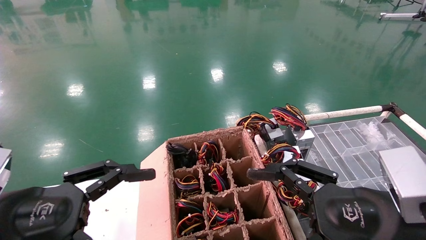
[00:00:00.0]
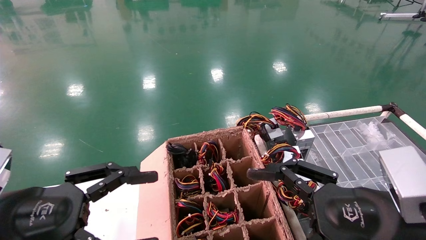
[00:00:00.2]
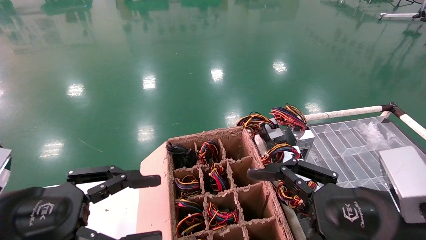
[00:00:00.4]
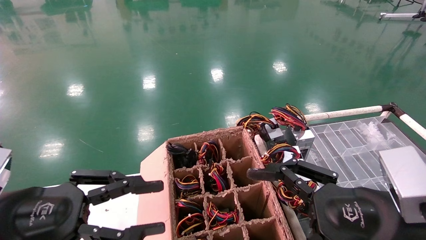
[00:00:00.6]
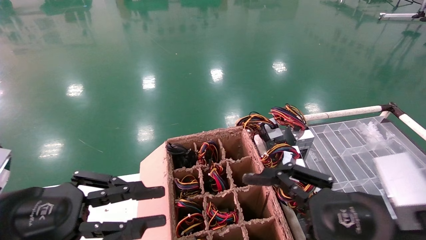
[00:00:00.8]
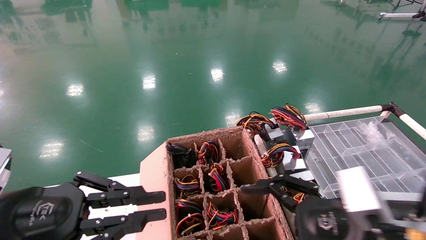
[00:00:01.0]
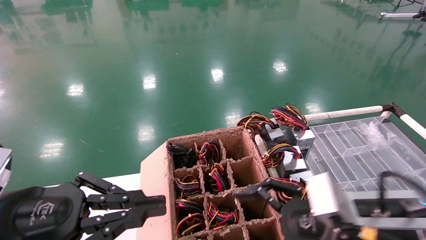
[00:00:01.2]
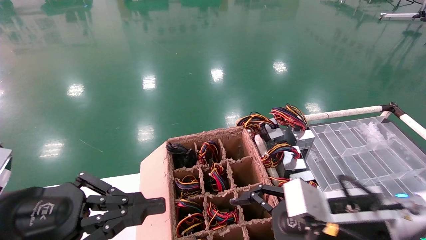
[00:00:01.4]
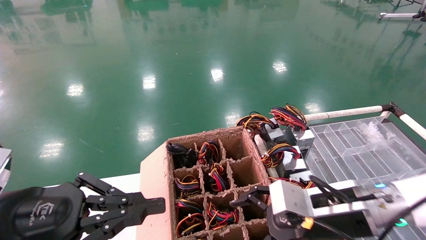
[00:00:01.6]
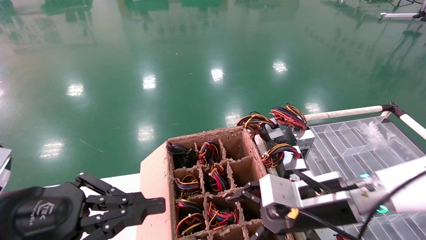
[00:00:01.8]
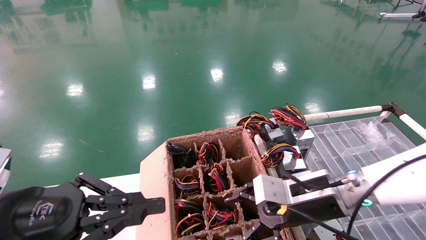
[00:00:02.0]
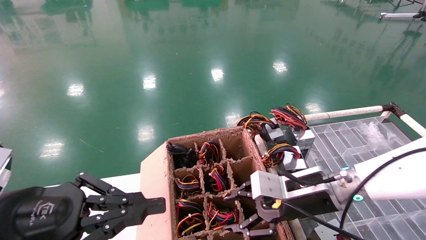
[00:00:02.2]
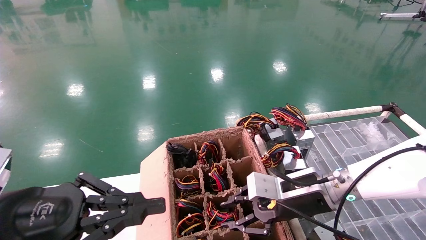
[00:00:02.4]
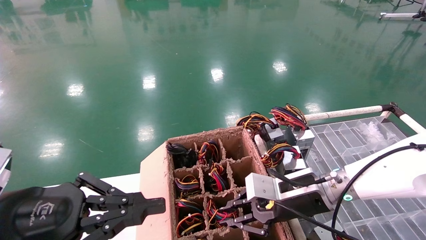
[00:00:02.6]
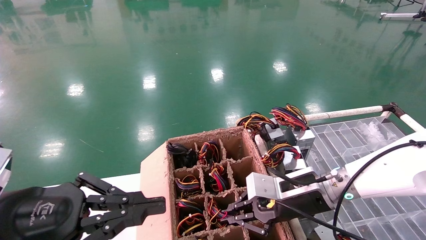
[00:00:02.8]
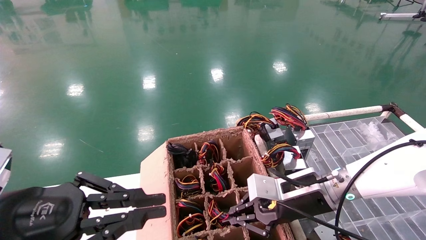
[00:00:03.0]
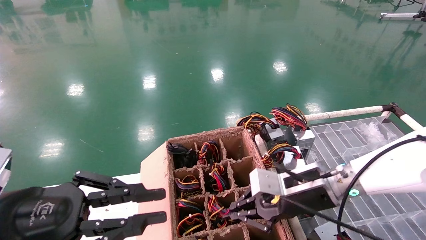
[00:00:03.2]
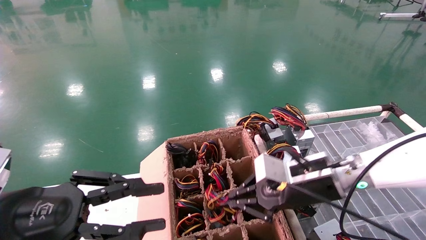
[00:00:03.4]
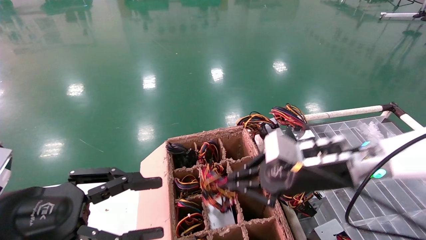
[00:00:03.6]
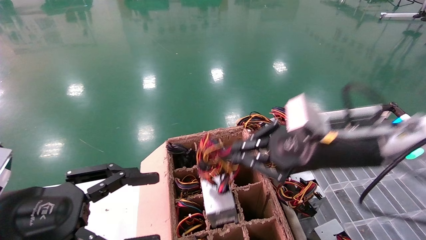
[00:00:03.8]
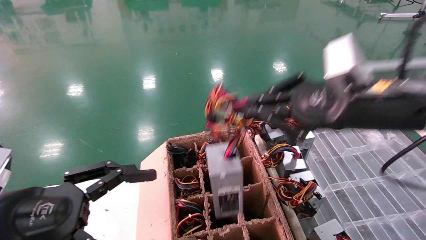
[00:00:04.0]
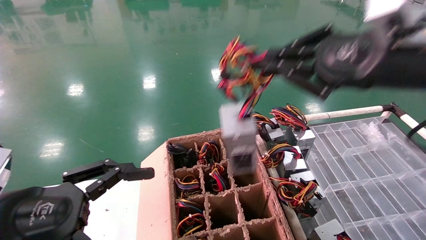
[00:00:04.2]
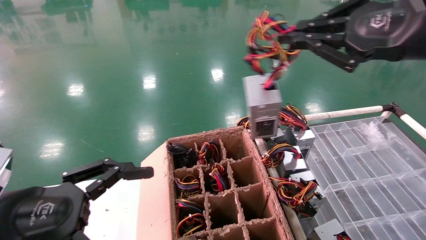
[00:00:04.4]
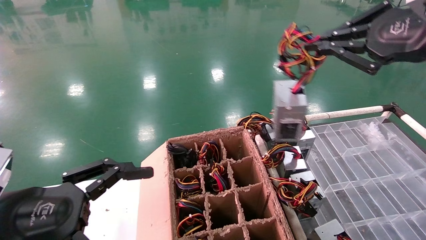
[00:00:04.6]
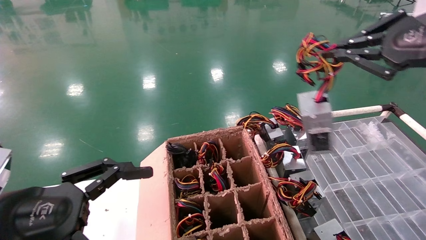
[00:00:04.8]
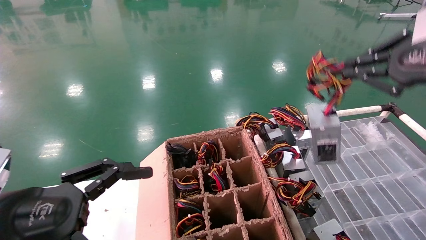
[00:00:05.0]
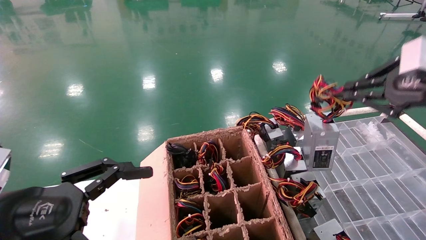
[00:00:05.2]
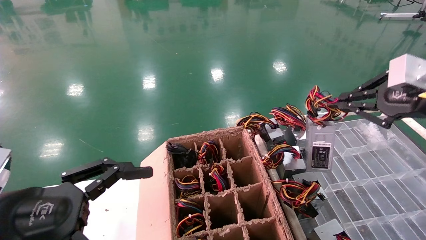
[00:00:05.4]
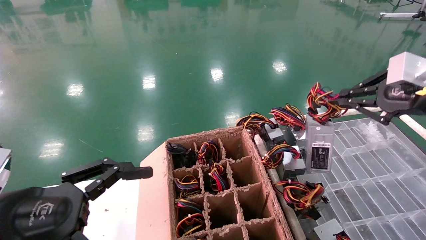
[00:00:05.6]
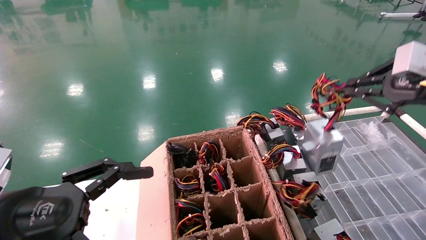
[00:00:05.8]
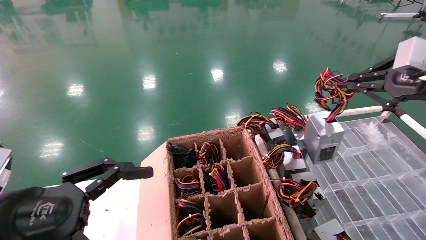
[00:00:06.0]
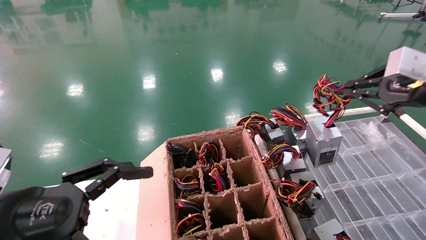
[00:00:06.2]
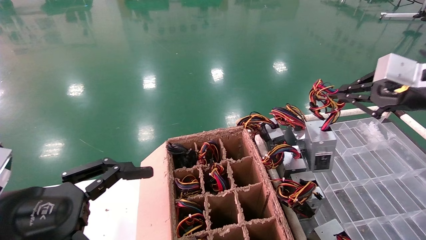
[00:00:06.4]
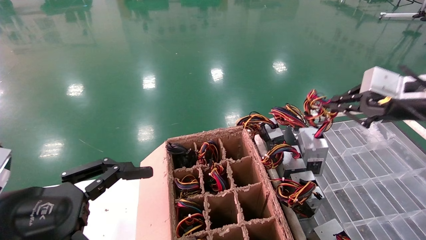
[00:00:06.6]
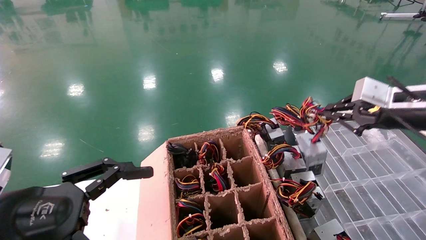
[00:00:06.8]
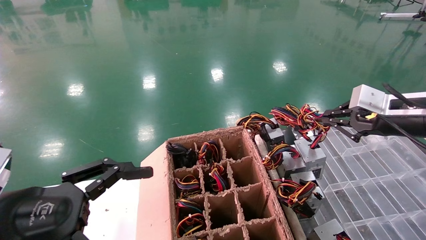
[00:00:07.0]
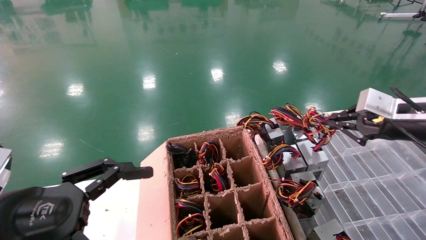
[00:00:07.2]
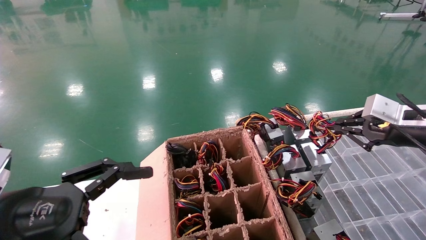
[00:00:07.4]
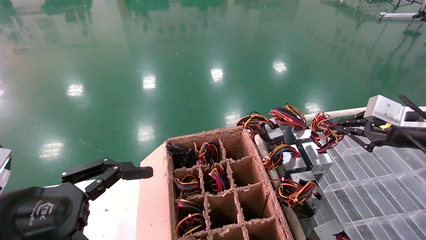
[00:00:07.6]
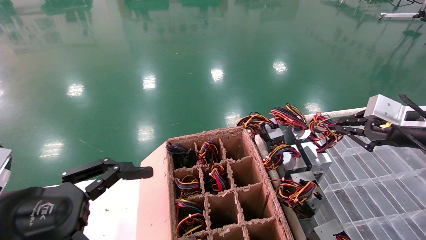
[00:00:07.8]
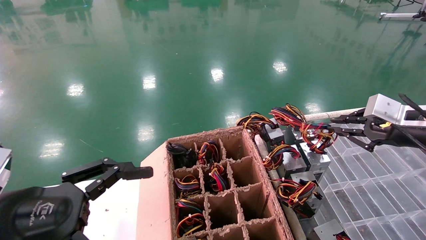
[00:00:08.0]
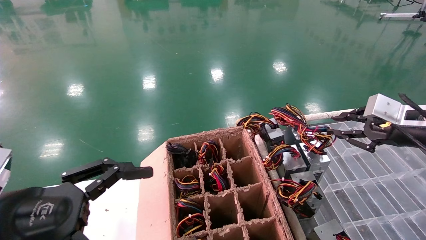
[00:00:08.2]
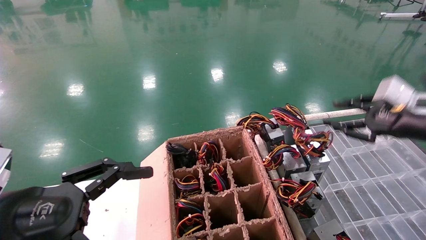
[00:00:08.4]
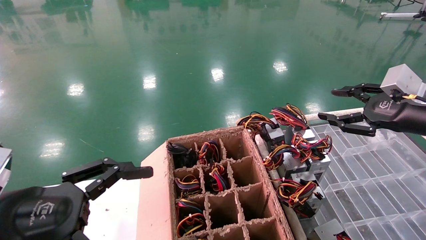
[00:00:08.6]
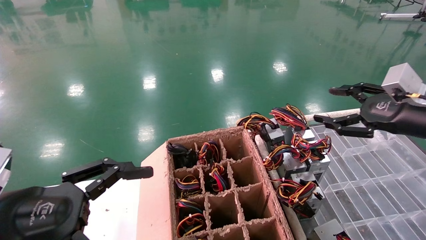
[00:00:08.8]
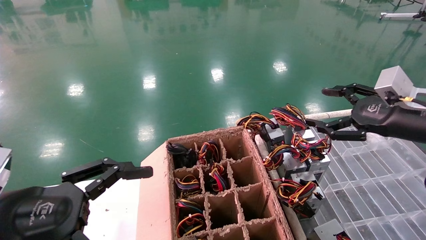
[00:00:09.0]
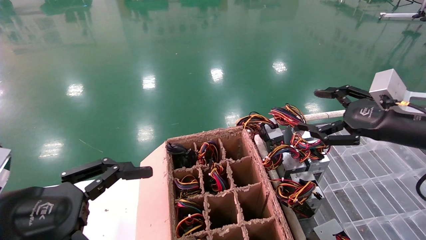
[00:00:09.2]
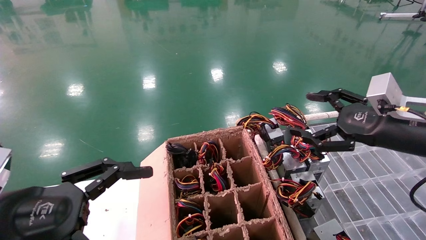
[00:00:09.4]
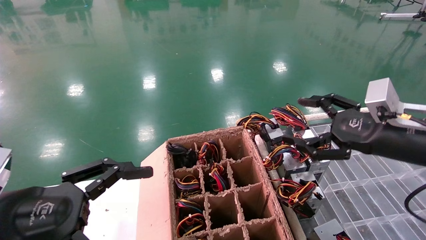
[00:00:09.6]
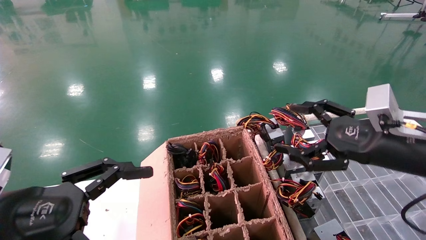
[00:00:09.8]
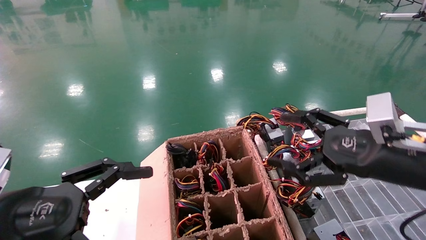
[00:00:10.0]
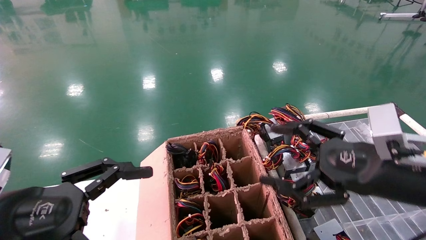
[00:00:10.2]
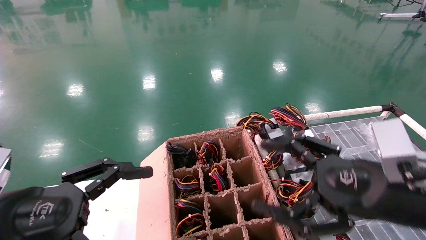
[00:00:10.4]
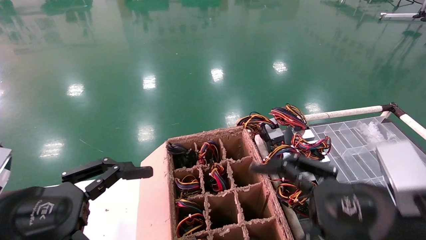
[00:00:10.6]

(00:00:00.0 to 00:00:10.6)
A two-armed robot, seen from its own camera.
Step, 00:00:01.6 - 00:00:03.0: Grab and lift the power supply from the large box.
Step, 00:00:03.2 - 00:00:07.8: Place the power supply on the operating table.
00:00:00.0 - 00:00:01.6: The right gripper shifts about 10 cm forward. Meanwhile the left gripper closes.
00:00:01.6 - 00:00:03.0: The right gripper moves forward, about 5 cm, and closes.
00:00:03.0 - 00:00:04.6: The left gripper opens up. Meanwhile the right gripper shifts roughly 30 cm upward, to the right and backward.
00:00:04.6 - 00:00:06.0: The right gripper is displaced to the right and downward by roughly 10 cm.
00:00:06.0 - 00:00:07.6: The right gripper is displaced downward by some 10 cm.
00:00:07.6 - 00:00:09.0: The right gripper opens.
00:00:09.0 - 00:00:10.6: The right gripper moves to the left, backward and downward, roughly 20 cm.
